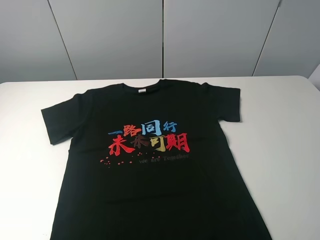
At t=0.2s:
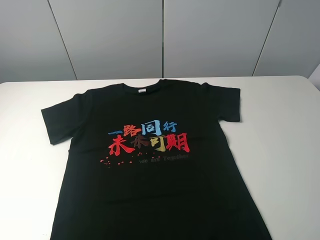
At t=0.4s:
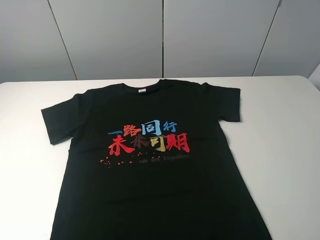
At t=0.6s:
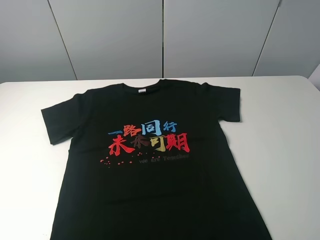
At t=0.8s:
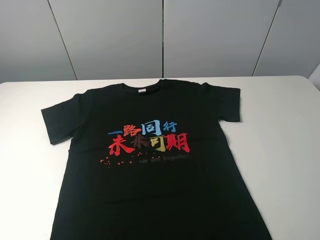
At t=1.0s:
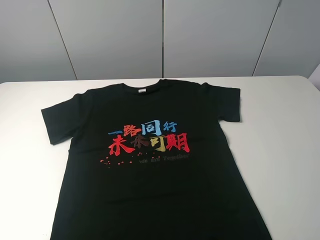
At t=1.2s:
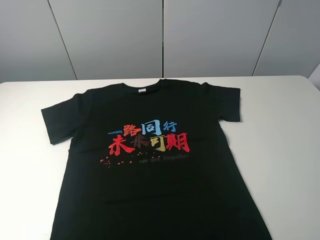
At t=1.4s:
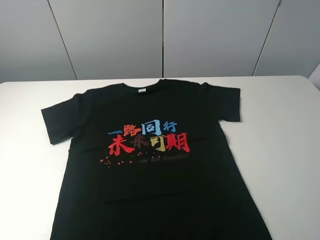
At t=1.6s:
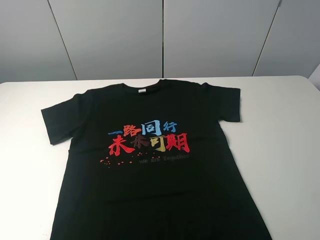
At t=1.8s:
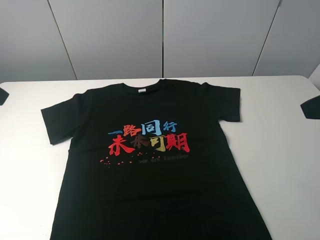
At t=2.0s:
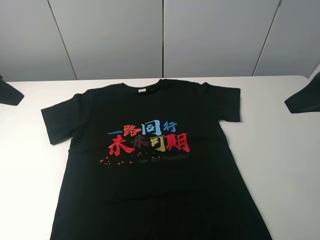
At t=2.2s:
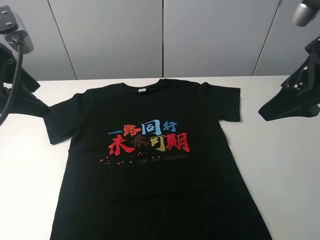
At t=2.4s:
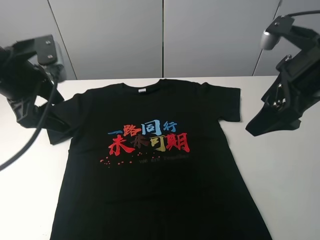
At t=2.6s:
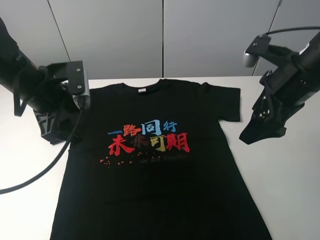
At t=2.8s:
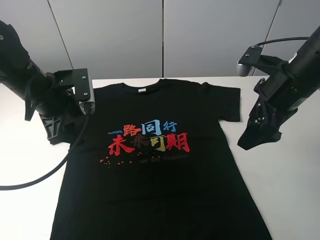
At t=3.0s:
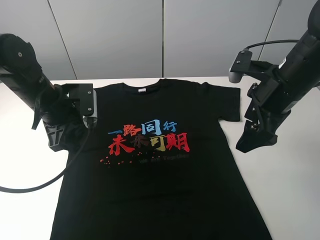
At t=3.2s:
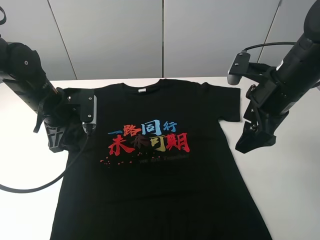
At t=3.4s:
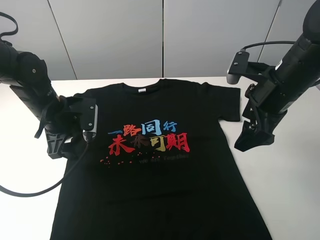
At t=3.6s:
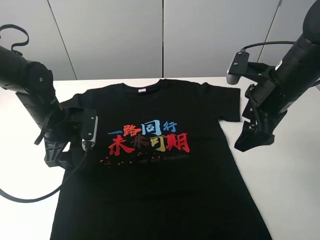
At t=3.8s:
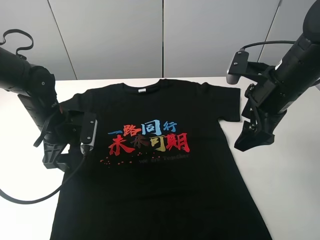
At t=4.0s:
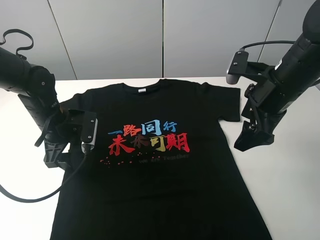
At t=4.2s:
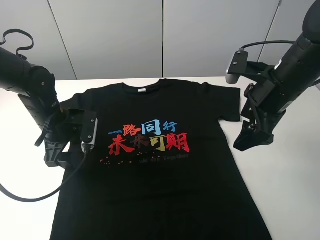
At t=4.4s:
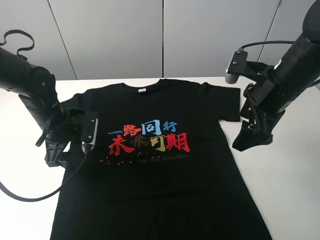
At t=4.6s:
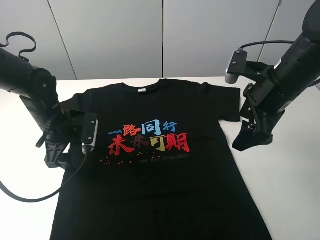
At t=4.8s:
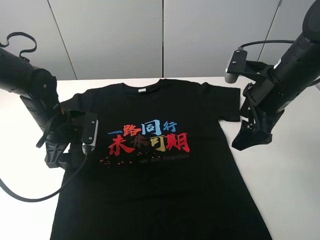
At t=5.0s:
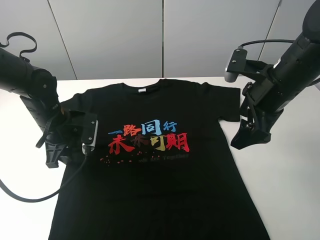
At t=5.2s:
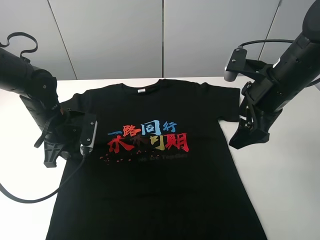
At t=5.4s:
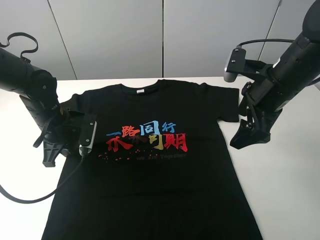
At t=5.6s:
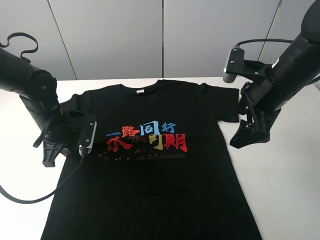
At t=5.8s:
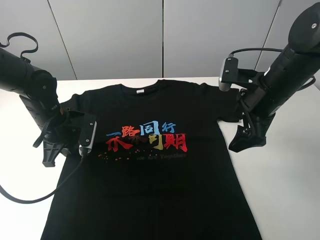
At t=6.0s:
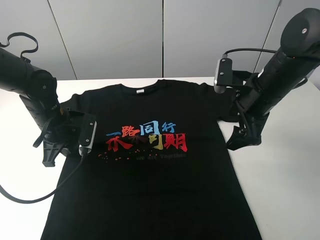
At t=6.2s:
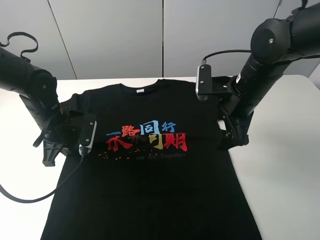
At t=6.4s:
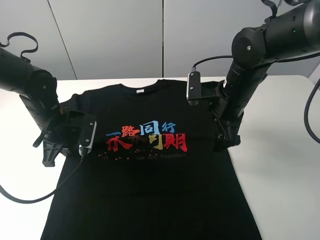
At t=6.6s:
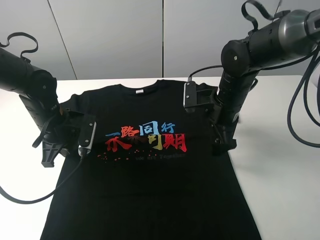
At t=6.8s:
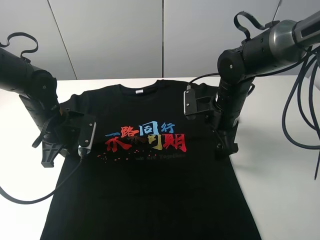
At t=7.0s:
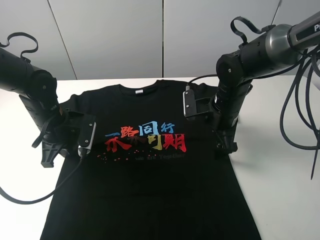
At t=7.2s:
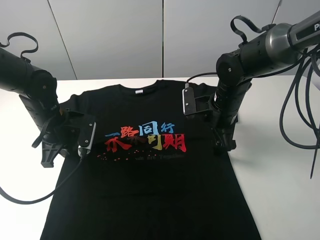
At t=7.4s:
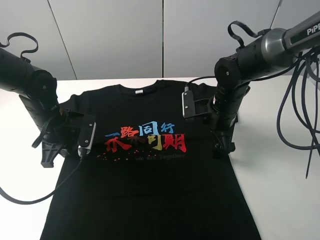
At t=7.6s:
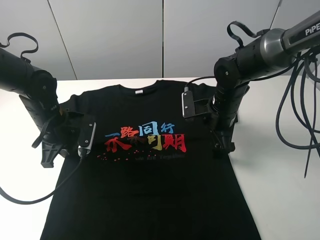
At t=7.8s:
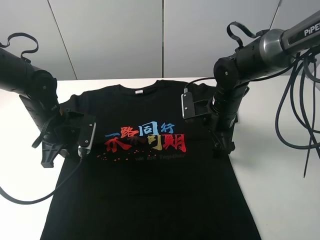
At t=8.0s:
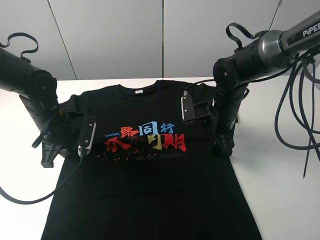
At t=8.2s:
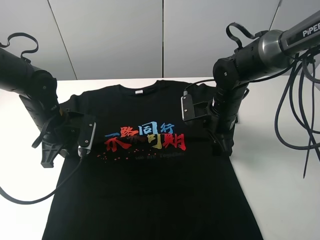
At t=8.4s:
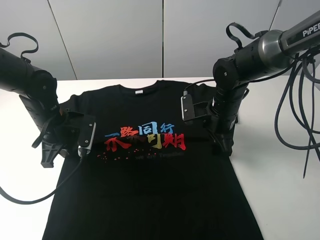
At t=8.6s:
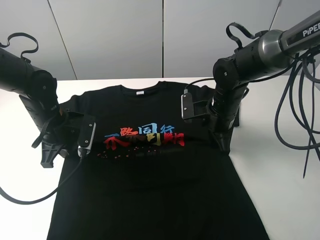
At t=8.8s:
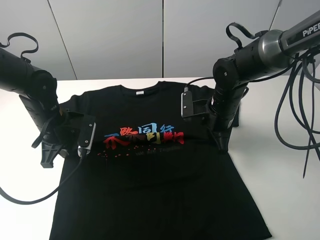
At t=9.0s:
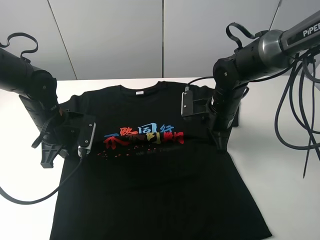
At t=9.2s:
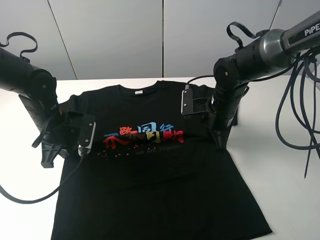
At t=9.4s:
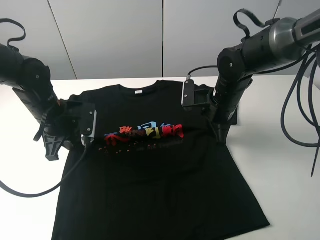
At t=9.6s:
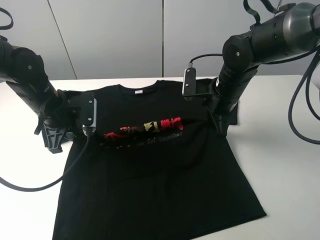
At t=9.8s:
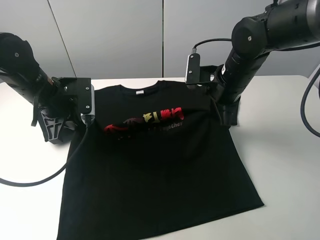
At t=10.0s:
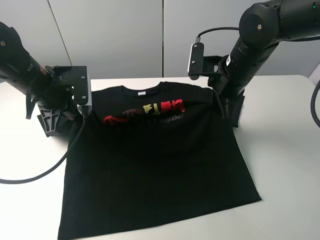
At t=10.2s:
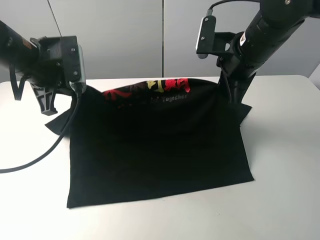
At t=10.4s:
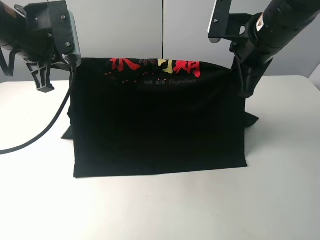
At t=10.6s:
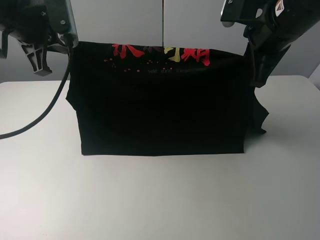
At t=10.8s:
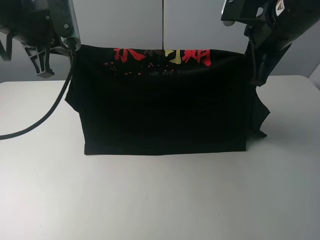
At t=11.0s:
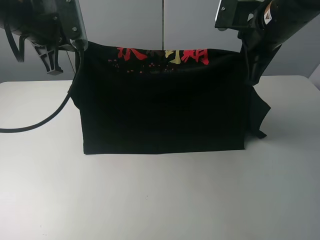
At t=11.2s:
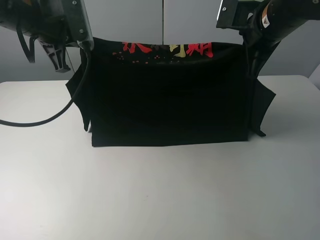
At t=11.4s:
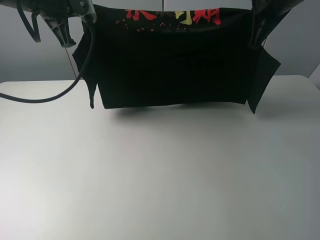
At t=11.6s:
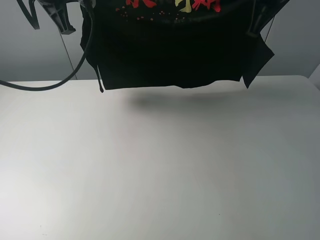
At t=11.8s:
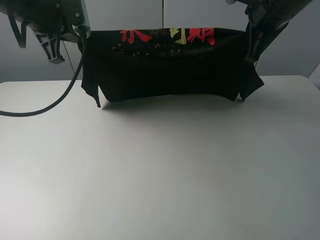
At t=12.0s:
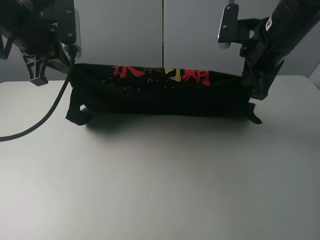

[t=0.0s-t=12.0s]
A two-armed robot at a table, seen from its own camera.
Task of the whole recording: fold the clothes on the table.
Step, t=0.0s to t=7.8s: Lift the black T-shirt with the left gripper.
t=1.6s to t=3.0s: The left gripper moves downward, forward and to the right, about 25 cm. The right gripper travels forward and downward by about 20 cm.
t=3.0s to t=4.4s: The left gripper is displaced downward by some 5 cm.
t=4.4s to t=6.0s: The left gripper closes its fingers.
t=6.0s to t=7.6s: The right gripper travels downward by roughly 10 cm.
t=7.6s to t=9.0s: The right gripper closes.
t=9.0s to t=10.4s: The grippers both shift upward by roughly 20 cm.

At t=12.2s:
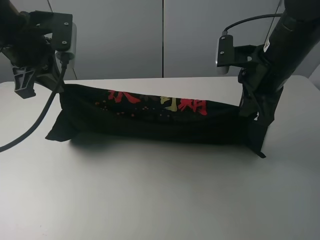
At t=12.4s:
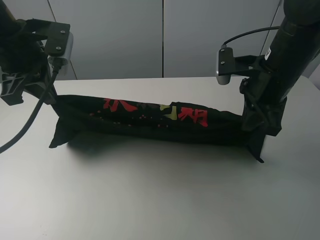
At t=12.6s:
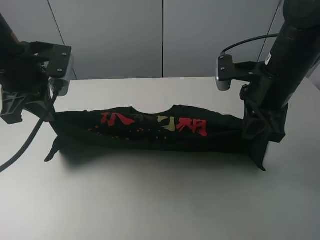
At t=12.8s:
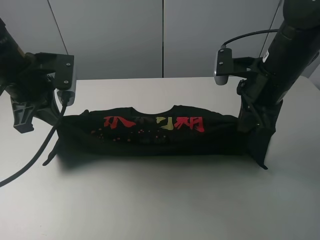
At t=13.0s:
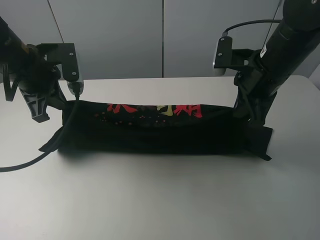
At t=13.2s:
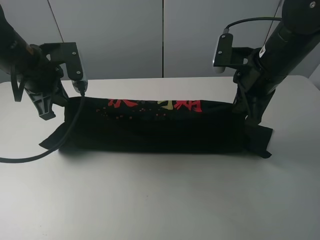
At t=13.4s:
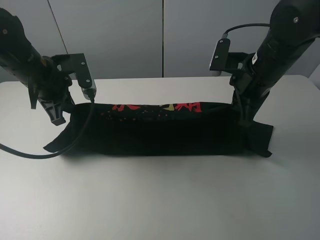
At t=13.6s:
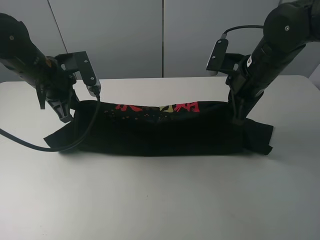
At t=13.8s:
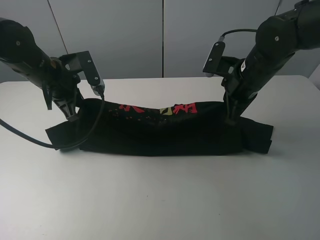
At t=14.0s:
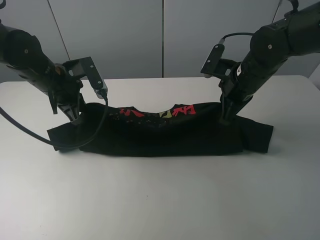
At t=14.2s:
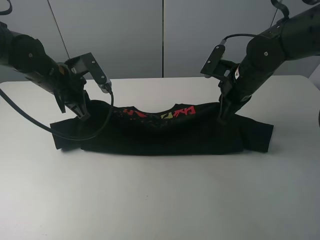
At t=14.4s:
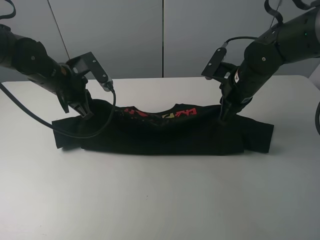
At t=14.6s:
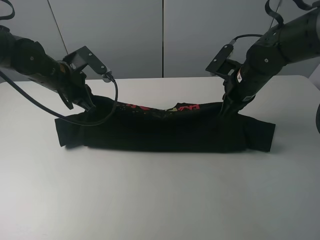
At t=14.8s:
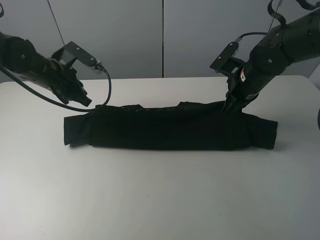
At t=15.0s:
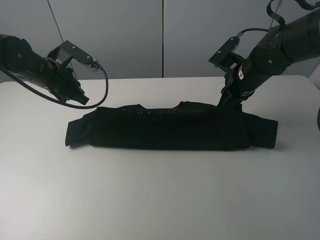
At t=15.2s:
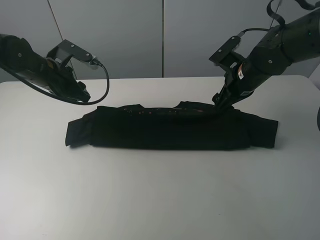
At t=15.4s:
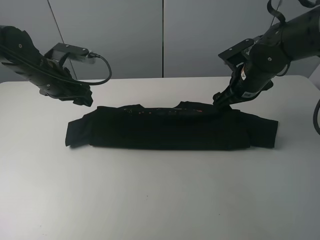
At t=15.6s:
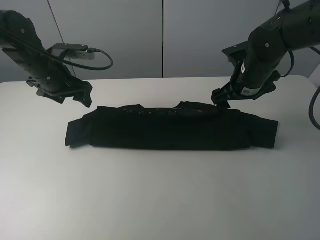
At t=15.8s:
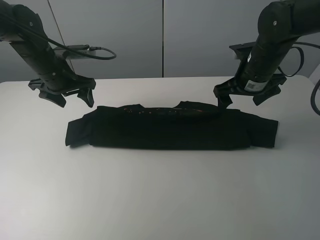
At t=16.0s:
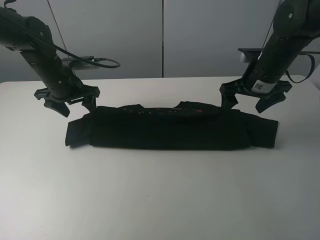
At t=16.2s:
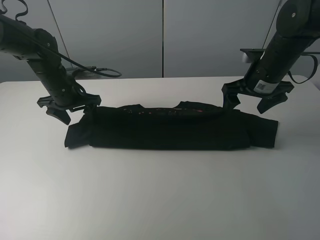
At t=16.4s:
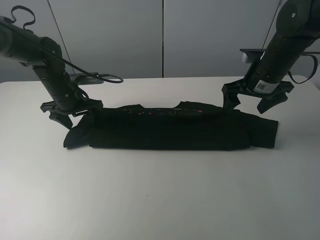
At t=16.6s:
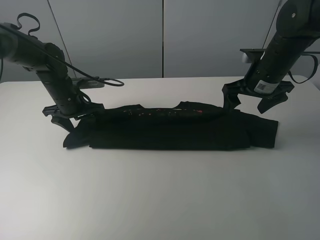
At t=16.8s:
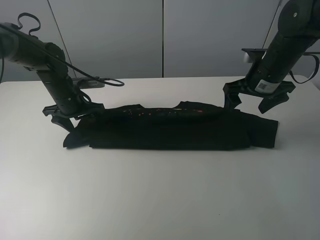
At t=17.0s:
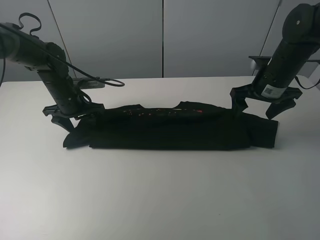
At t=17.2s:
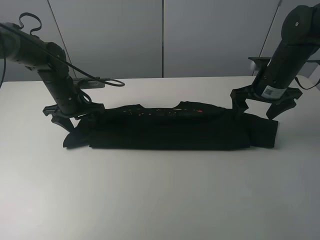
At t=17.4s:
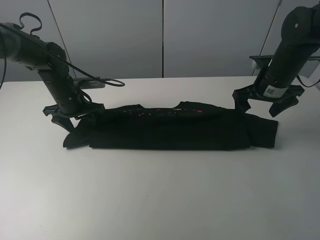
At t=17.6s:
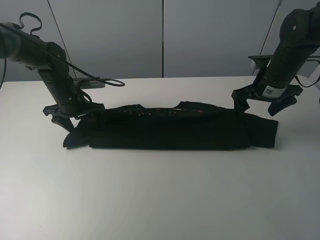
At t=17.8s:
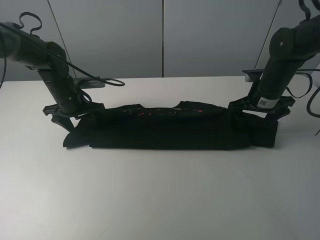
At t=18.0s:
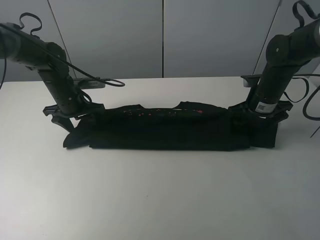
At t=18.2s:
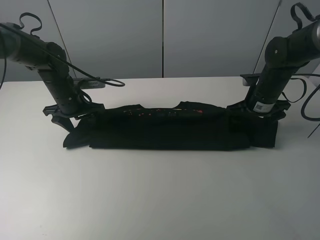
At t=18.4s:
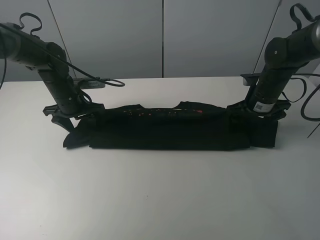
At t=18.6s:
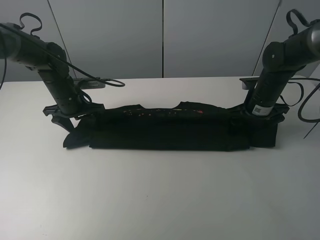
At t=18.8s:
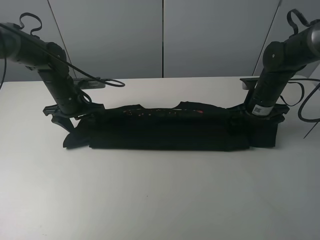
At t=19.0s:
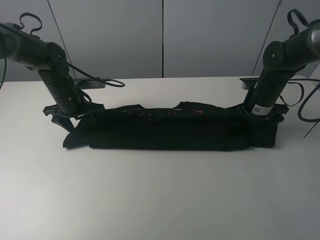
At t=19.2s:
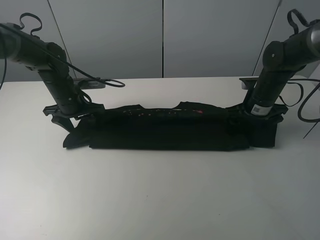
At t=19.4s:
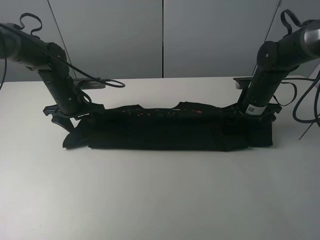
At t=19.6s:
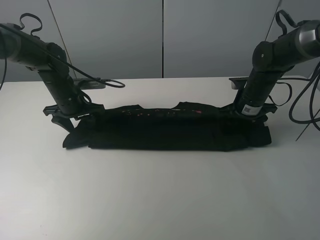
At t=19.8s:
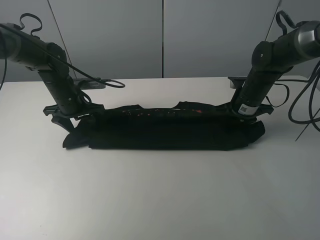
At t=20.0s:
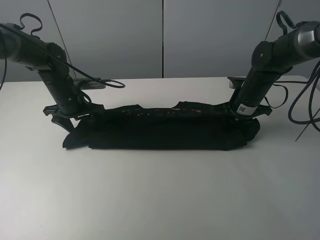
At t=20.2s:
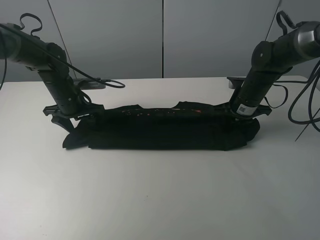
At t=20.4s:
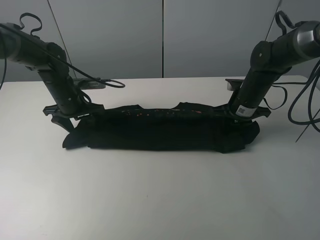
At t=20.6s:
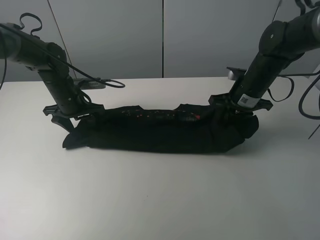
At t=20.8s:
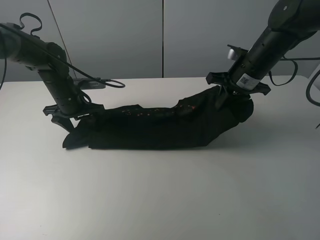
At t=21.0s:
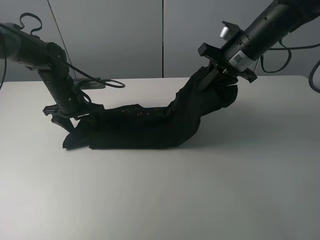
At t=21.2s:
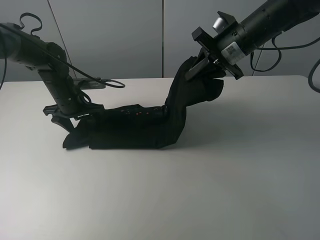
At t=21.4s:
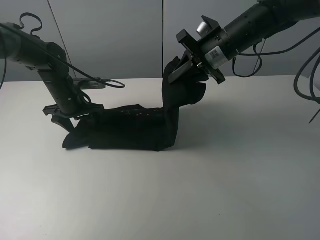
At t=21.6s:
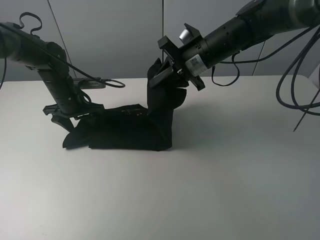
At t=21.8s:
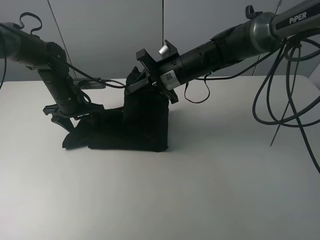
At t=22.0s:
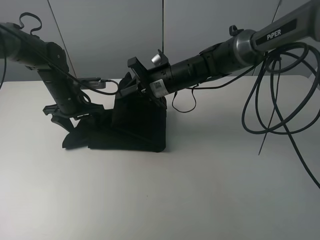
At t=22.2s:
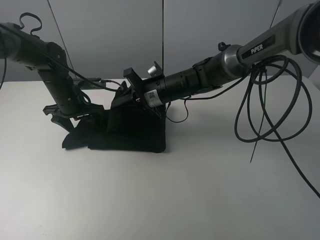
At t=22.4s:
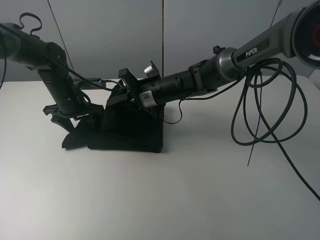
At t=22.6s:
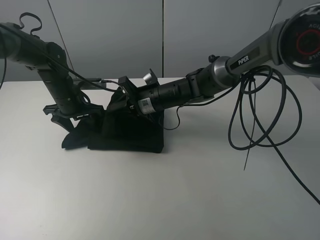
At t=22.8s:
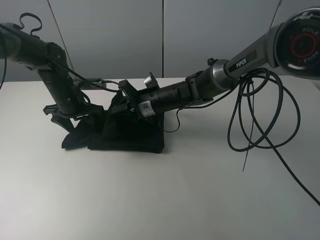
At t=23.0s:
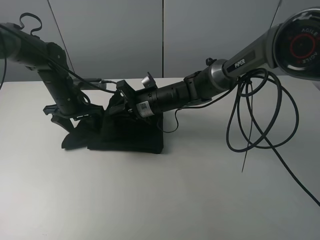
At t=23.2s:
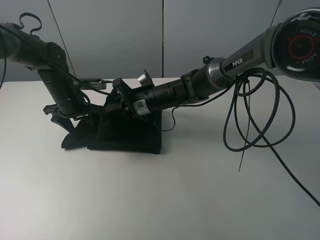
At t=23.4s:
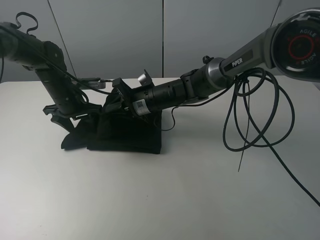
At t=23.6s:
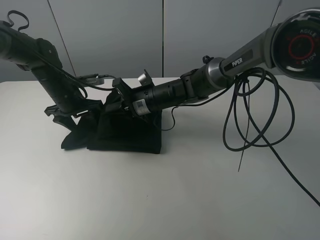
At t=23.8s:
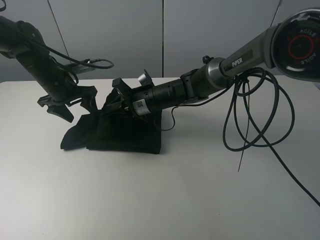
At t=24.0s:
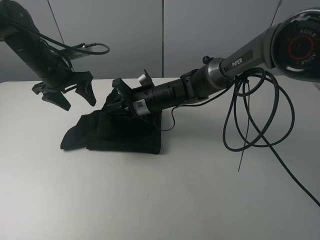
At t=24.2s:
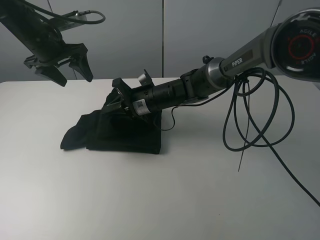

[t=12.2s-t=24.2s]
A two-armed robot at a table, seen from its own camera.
Task of the whole recording: fold the clothes on the table.
Step, t=12.2s to t=15.2s: Fold the black T-shirt downward with the left gripper.
Step, t=15.4s to t=20.0s: Grasp the black T-shirt with the right gripper.
t=12.2s to t=13.8s: The left gripper goes about 10 cm downward, while the right gripper travels downward by some 5 cm.
t=13.8s to t=15.2s: The left gripper opens its fingers. Meanwhile the right gripper opens.
t=15.2s to t=16.6s: The left gripper moves downward, roughly 5 cm.
t=16.6s to t=18.2s: The right gripper heads downward, covering some 5 cm.
t=18.2s to t=19.8s: The right gripper closes.
t=19.8s to t=21.2s: The right gripper goes some 15 cm upward and to the left.
t=21.2s to t=22.6s: The right gripper moves to the left and downward, some 20 cm.
t=22.6s to t=24.2s: The left gripper is displaced upward by some 15 cm.
